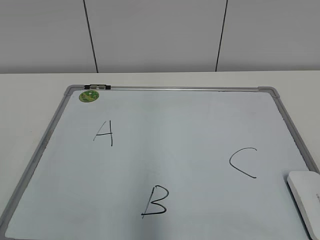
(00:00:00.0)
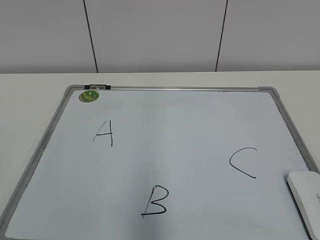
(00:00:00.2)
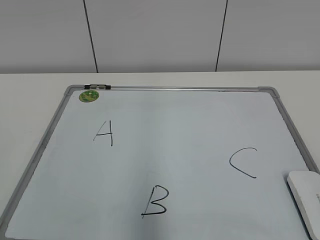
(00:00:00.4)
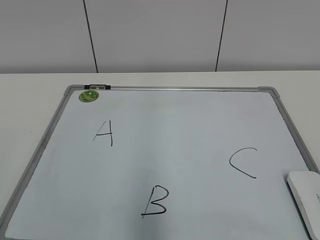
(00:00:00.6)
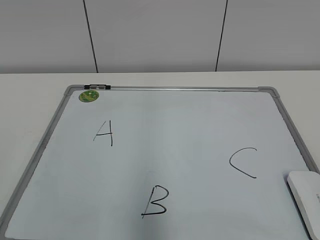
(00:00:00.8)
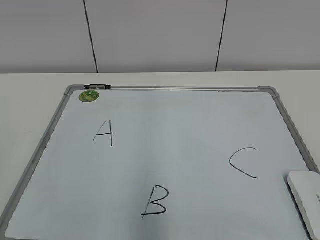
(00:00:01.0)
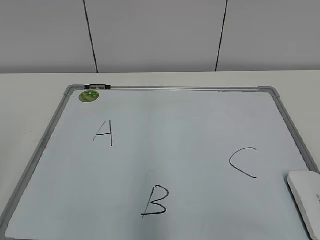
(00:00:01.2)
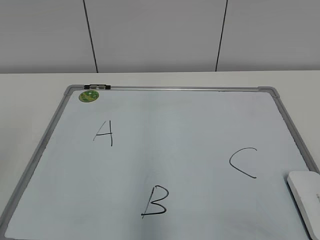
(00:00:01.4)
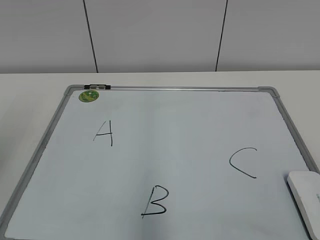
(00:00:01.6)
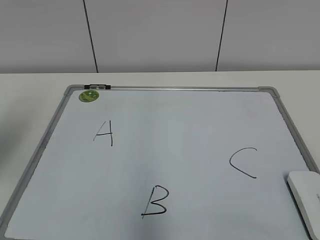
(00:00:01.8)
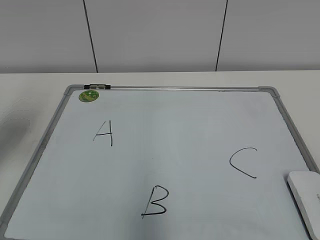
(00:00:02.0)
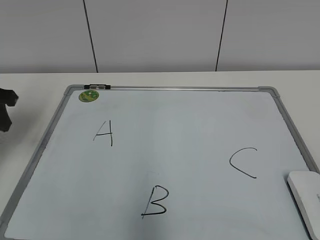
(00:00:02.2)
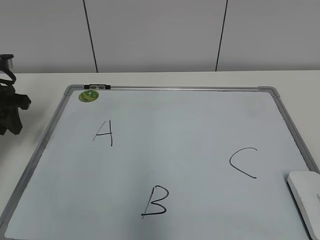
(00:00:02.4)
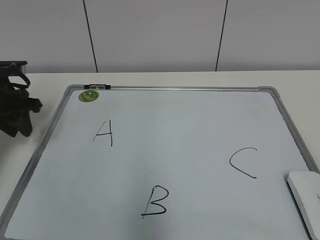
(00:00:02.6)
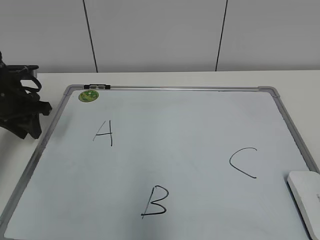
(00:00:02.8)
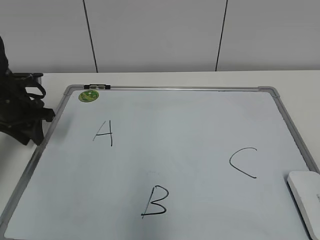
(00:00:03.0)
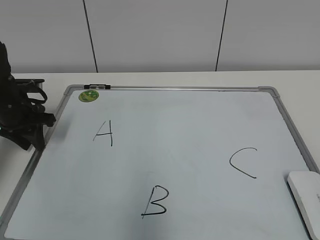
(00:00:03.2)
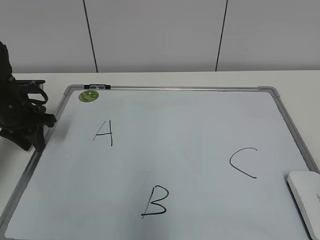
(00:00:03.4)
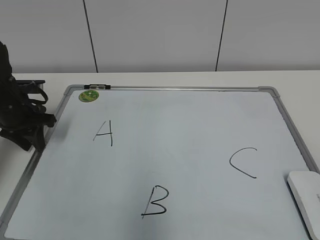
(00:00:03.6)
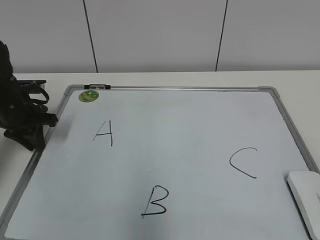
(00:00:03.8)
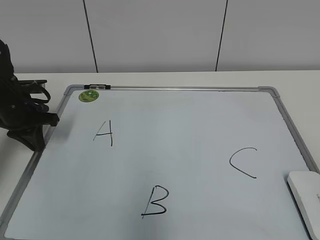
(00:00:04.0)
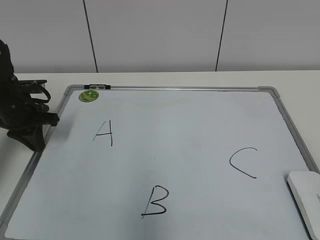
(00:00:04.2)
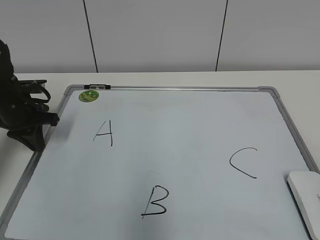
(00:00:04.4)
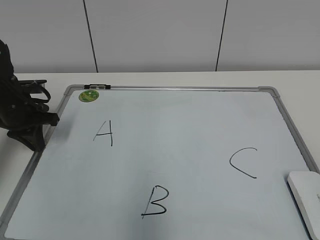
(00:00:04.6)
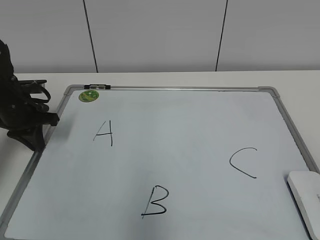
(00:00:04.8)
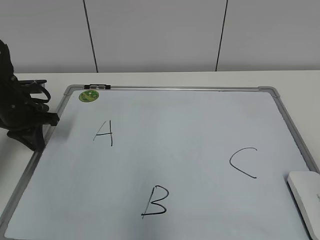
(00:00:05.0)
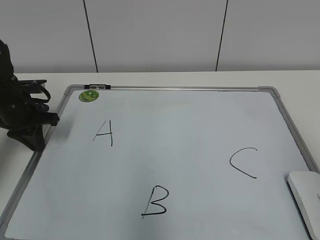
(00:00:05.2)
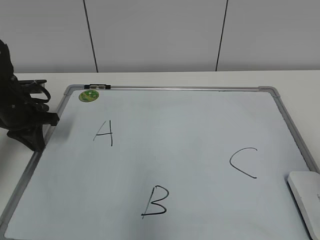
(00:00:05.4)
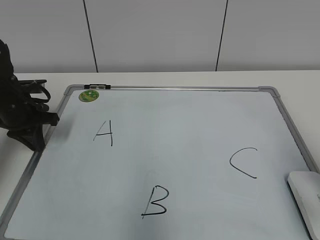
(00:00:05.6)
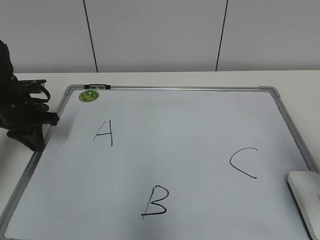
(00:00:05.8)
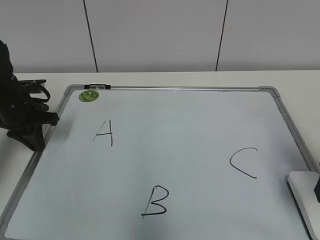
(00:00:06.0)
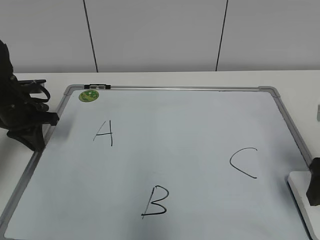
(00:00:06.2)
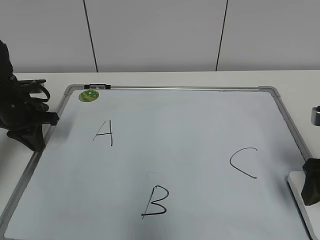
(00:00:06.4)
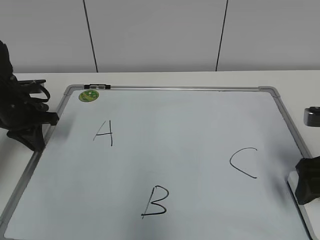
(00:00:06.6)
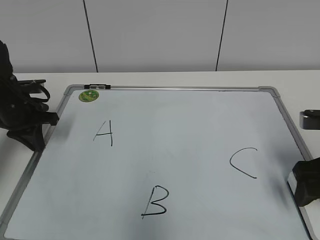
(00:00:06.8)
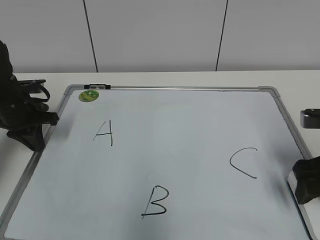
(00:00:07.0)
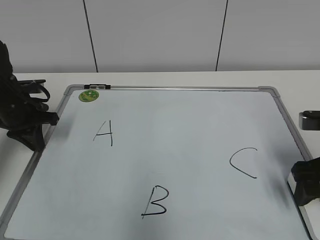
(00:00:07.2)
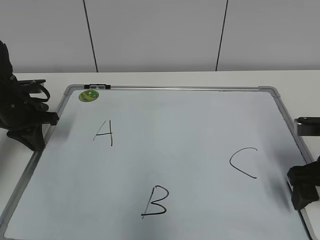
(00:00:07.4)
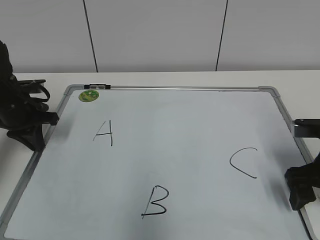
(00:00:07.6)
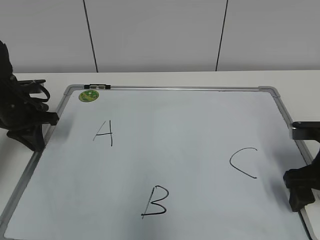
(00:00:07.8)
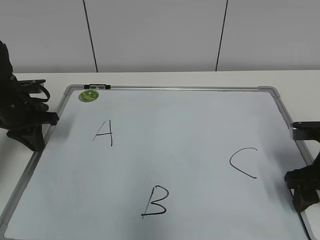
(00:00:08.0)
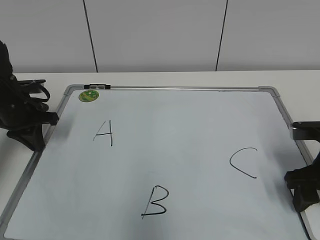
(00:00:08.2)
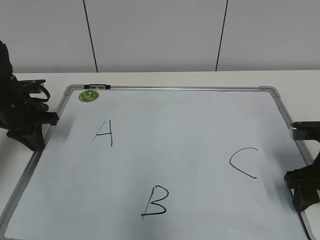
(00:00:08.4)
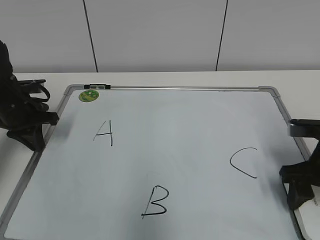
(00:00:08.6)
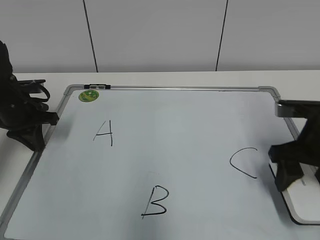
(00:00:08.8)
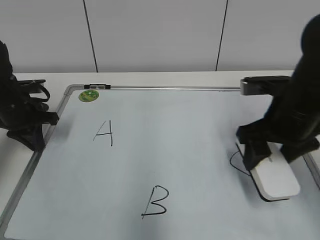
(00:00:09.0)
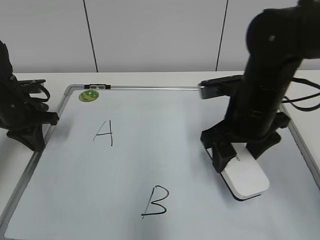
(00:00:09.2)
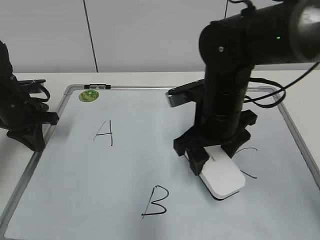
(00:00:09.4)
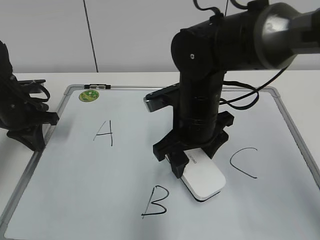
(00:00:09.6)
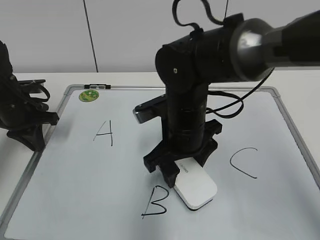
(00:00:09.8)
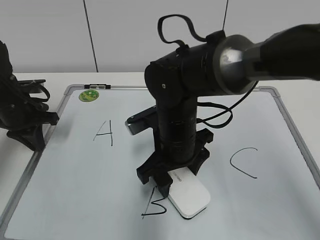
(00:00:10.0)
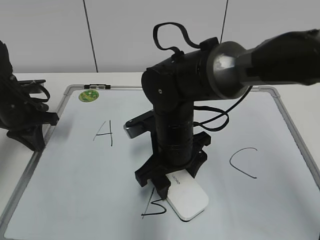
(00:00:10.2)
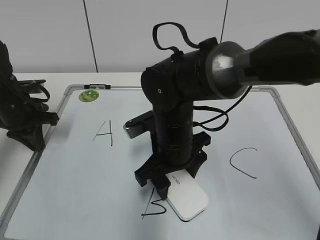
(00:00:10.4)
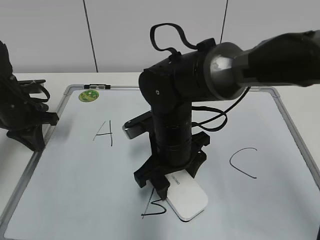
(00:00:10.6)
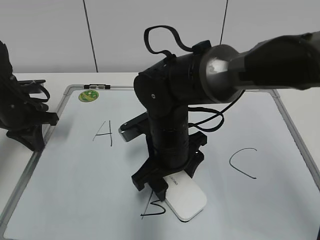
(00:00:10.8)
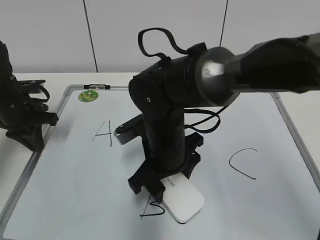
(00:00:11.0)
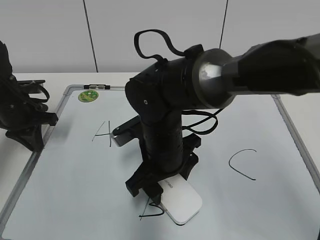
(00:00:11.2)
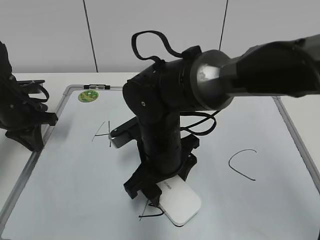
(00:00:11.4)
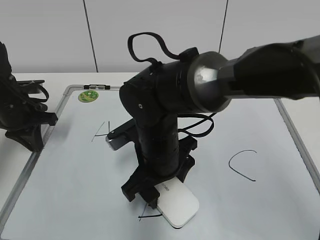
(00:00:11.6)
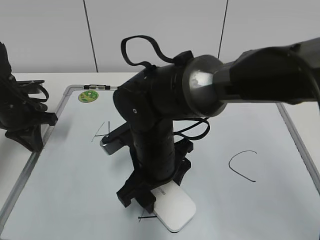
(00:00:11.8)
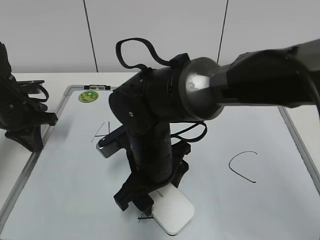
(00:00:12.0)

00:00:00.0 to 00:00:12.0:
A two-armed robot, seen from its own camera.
Task of the whole recording: pick up the eraser on the blackboard and erase the letter "B".
Step, 00:00:00.0 to 00:00:03.8: Hold the drawing board steady with your left hand.
Step, 00:00:04.2 to 00:00:08.0: Grab the eraser with your right hand.
00:00:01.6 to 00:00:03.0: The left gripper moves forward and downward, some 30 cm.
00:00:03.0 to 00:00:04.4: The left gripper closes up.
00:00:04.4 to 00:00:06.0: The right gripper is displaced forward by roughly 20 cm, and opens its fingers.
00:00:06.0 to 00:00:07.6: The right gripper shifts approximately 5 cm downward.
00:00:07.6 to 00:00:09.0: The right gripper heads to the left and upward, covering roughly 10 cm, and closes.
00:00:09.0 to 00:00:10.4: The right gripper travels to the left by about 15 cm.

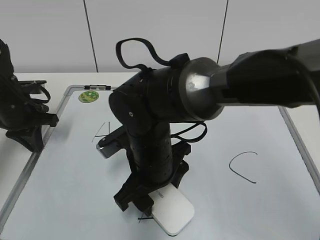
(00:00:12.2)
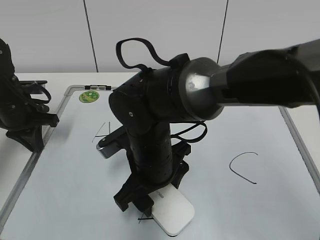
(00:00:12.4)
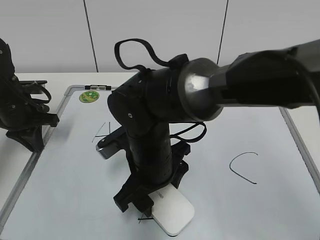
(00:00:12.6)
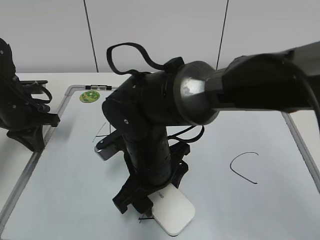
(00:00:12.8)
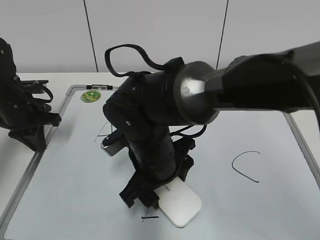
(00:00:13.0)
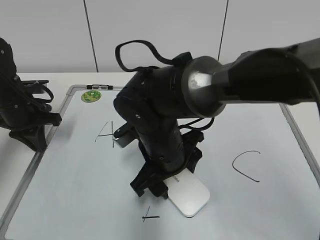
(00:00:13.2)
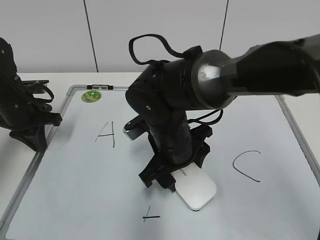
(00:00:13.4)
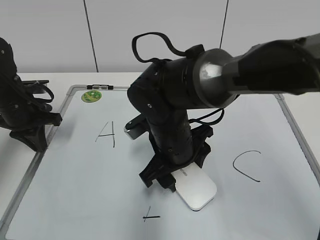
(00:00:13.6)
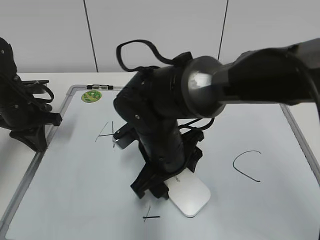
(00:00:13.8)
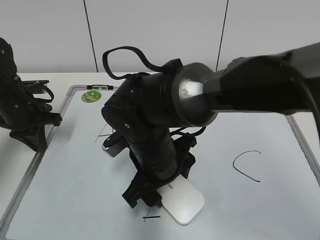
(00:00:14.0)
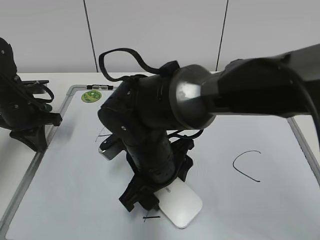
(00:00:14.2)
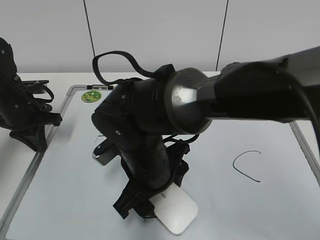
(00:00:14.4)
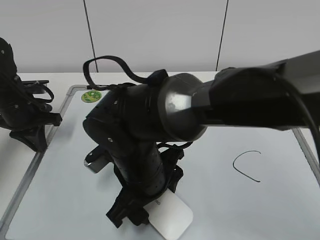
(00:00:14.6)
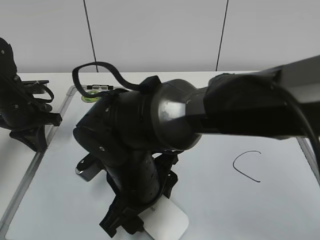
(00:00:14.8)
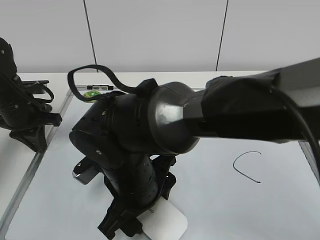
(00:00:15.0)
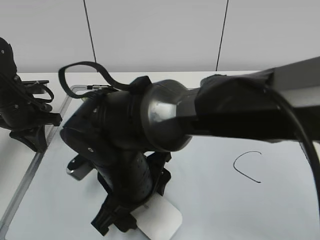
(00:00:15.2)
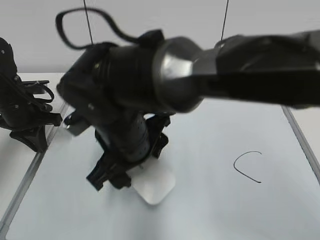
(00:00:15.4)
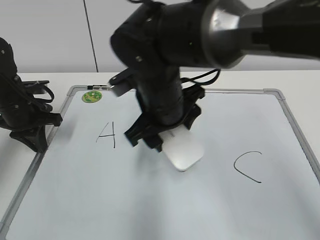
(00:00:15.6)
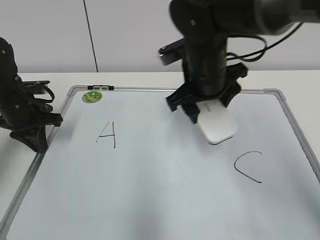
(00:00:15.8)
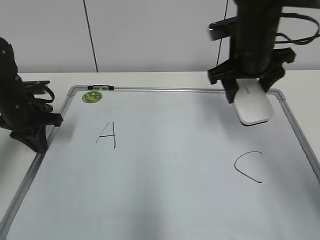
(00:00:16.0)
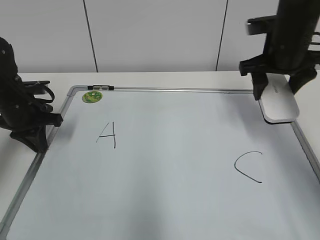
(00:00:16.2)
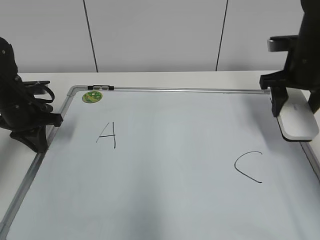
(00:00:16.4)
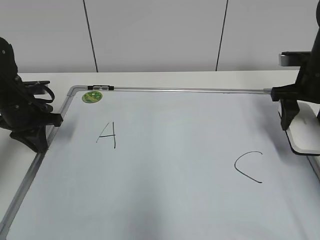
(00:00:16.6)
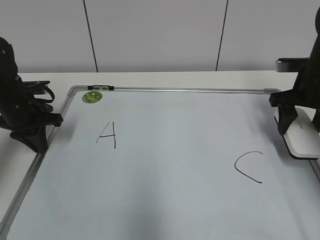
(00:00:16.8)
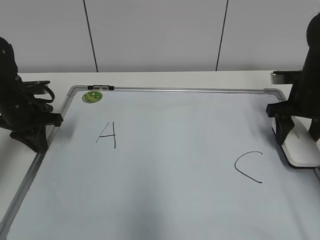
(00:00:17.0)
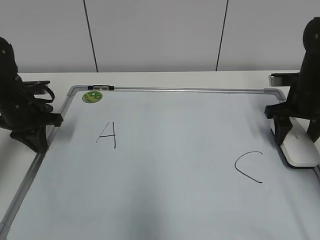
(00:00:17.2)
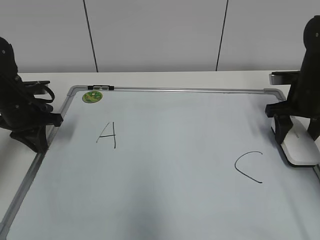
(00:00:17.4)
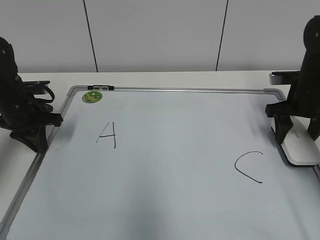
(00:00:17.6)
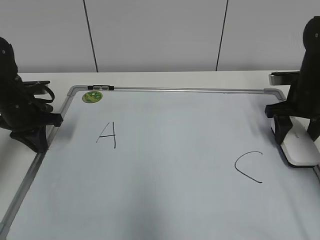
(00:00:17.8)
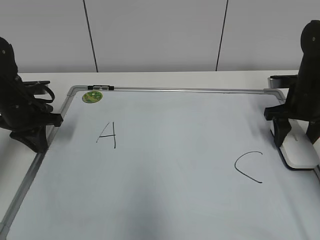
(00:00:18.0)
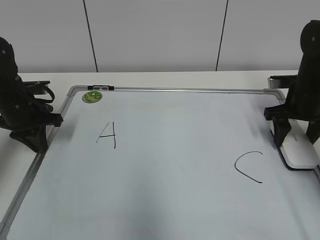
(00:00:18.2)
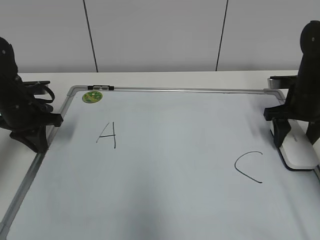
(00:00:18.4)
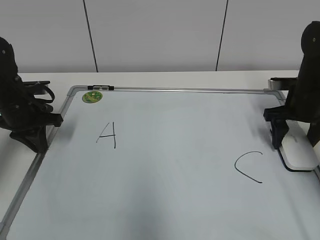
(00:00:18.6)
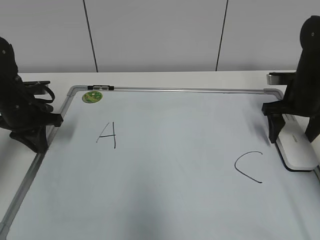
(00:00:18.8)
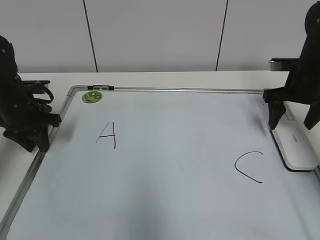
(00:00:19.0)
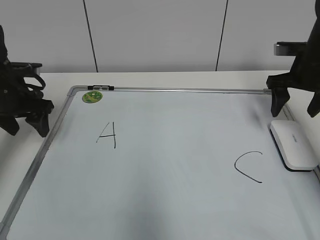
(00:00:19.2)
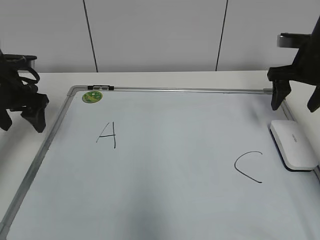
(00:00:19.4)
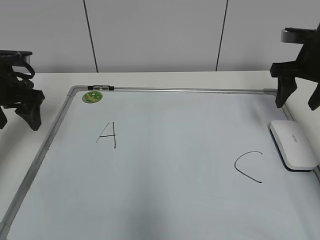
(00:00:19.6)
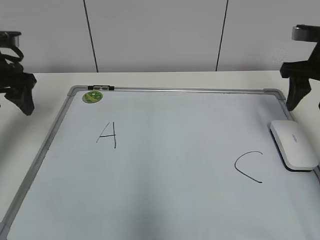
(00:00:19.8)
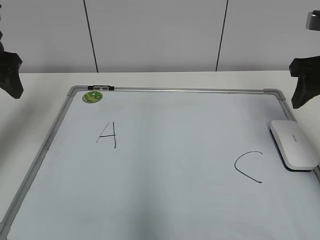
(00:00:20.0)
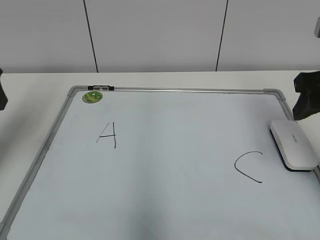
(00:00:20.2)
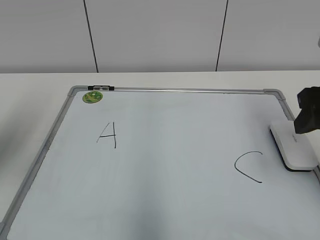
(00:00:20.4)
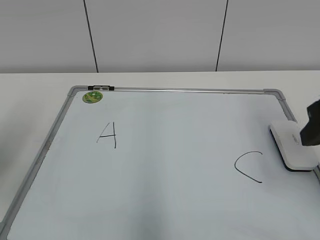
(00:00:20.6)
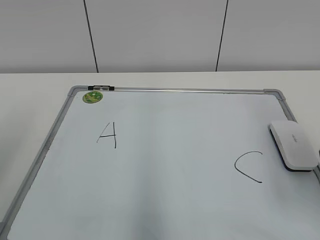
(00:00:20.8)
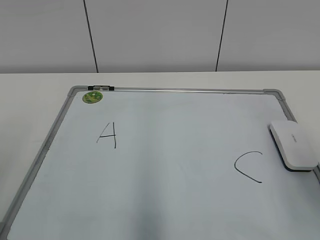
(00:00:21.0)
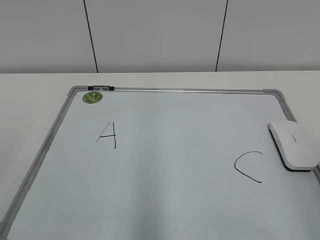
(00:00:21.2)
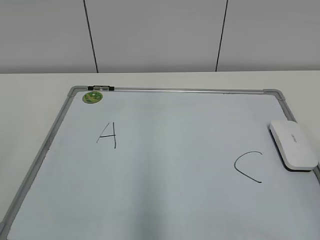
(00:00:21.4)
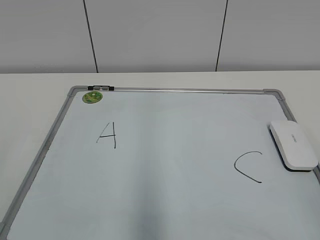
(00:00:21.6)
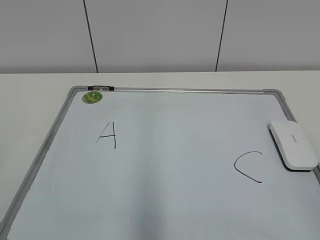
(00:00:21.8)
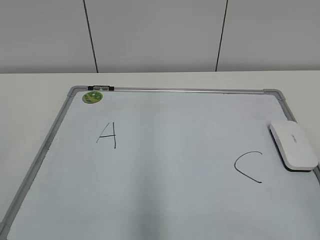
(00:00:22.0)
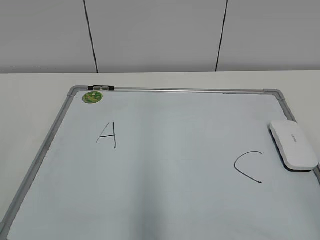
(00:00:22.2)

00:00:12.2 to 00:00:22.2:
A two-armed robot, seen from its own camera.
Task of the whole recording: pick up the eraser on the blackboard and erase the letter "B".
Step, 00:00:12.2 to 00:00:15.0: Erase the letter B with your right hand.
00:00:13.6 to 00:00:15.0: The right gripper moves backward and to the left, about 10 cm.
00:00:15.0 to 00:00:16.4: The right gripper is displaced to the right and forward by about 35 cm.
00:00:16.4 to 00:00:18.0: The right gripper is displaced downward by roughly 10 cm.
00:00:18.0 to 00:00:19.4: Both grippers move upward, roughly 5 cm. The left gripper opens up; the right gripper opens up.
00:00:19.4 to 00:00:20.8: The left gripper goes approximately 25 cm backward and upward. Meanwhile the right gripper travels backward by roughly 25 cm, and closes up.
00:00:20.8 to 00:00:22.2: The right gripper is displaced backward by about 15 cm.
